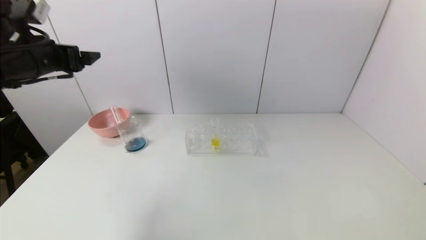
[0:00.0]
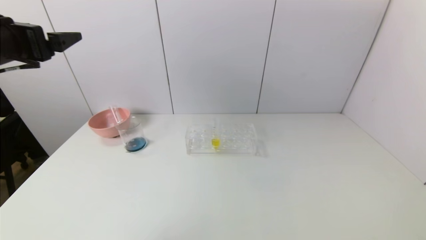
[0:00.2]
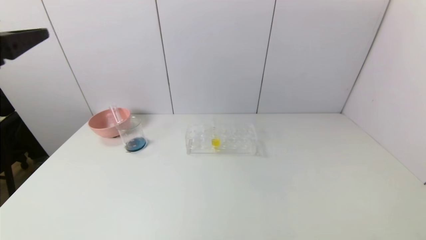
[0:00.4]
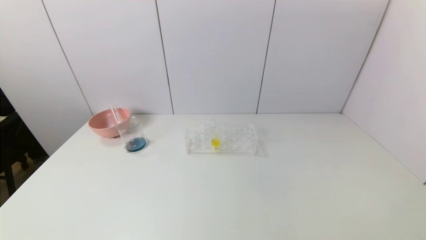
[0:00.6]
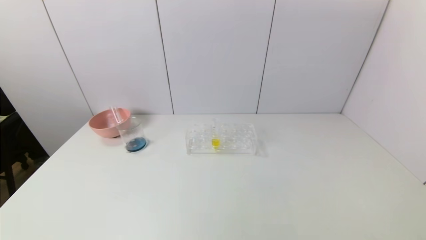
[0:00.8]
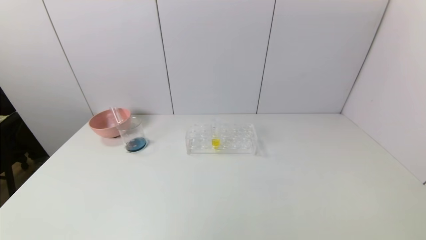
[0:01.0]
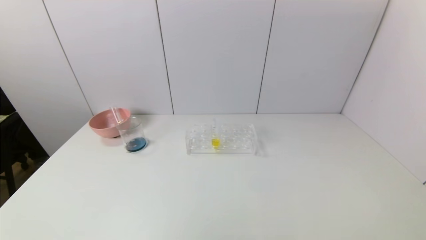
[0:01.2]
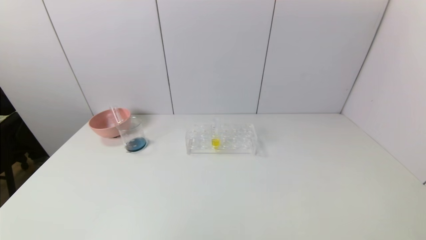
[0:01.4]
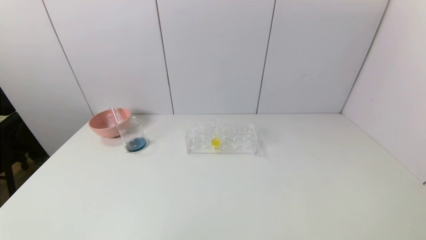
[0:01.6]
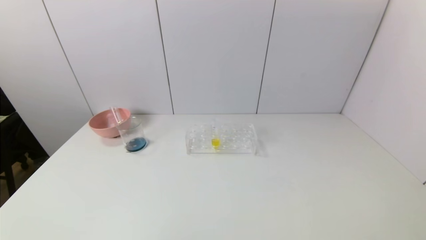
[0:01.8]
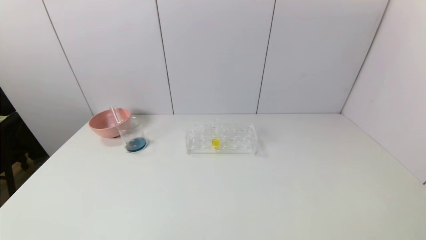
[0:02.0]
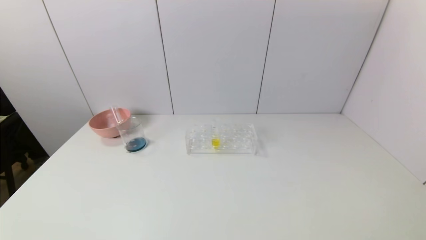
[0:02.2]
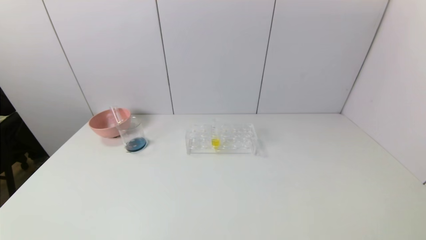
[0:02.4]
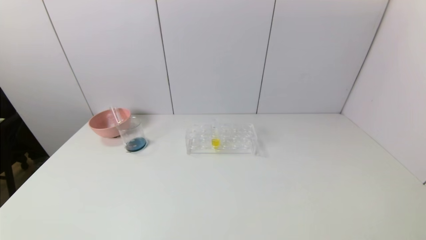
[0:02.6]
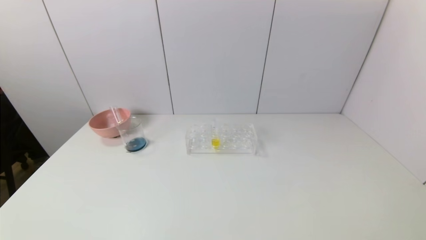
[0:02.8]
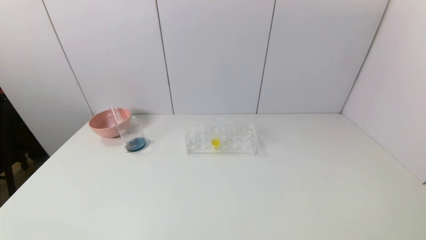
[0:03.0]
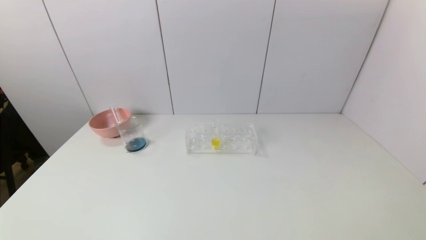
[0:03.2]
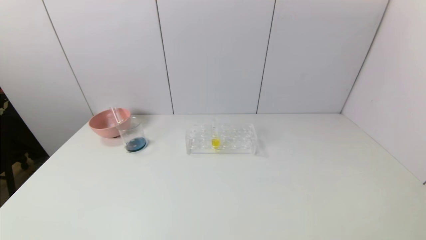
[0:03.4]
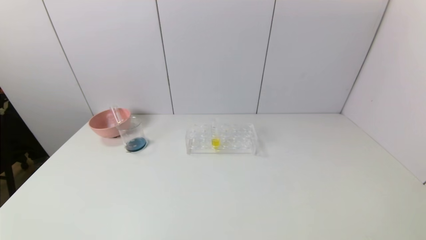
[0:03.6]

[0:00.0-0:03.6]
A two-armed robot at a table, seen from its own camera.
Task of the whole recording: pick up the test tube with red pigment and the test tube with blue pigment by grippers and pour them into the container.
0:00.0 to 0:01.8: The left gripper shifts approximately 40 cm backward and downward.
